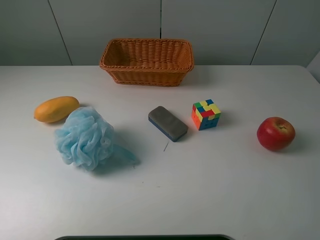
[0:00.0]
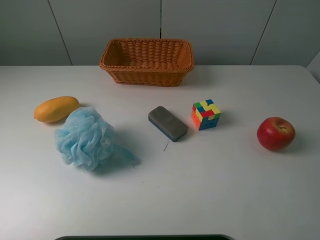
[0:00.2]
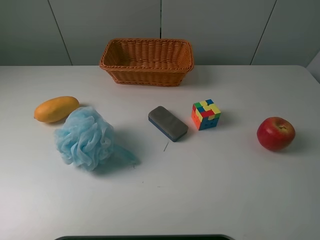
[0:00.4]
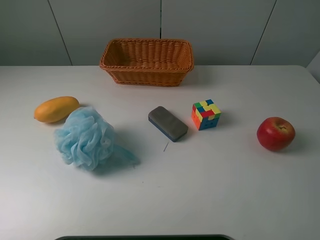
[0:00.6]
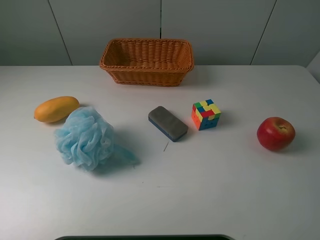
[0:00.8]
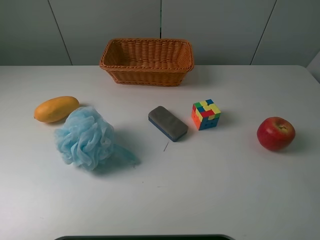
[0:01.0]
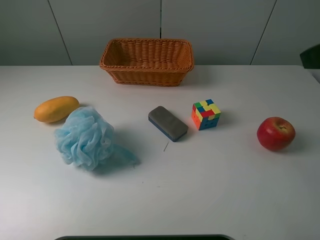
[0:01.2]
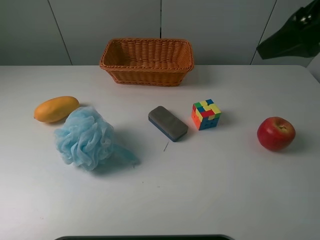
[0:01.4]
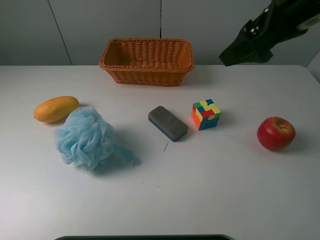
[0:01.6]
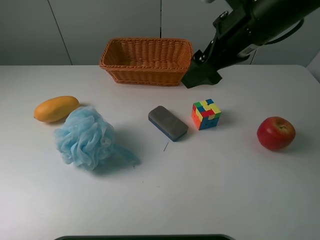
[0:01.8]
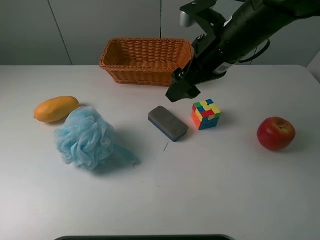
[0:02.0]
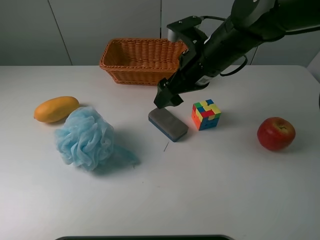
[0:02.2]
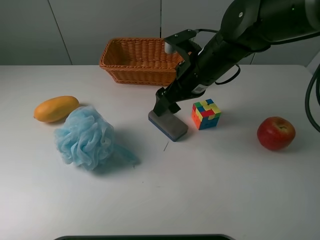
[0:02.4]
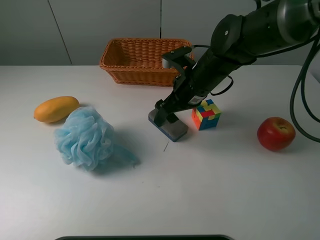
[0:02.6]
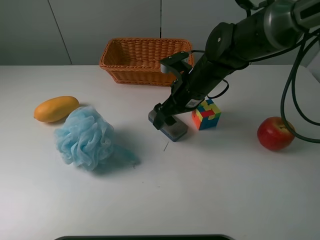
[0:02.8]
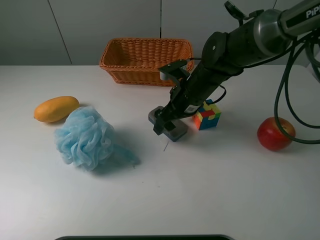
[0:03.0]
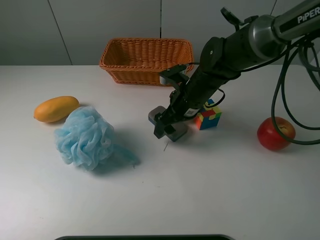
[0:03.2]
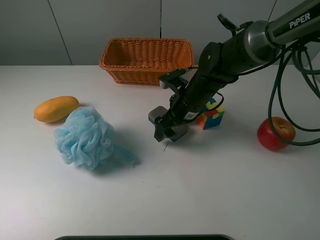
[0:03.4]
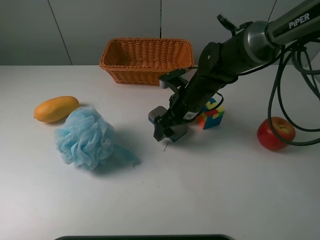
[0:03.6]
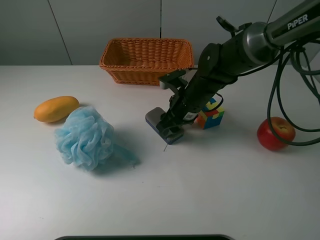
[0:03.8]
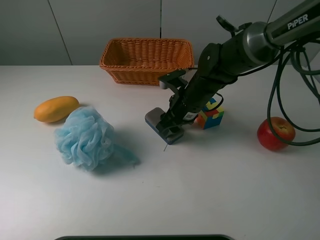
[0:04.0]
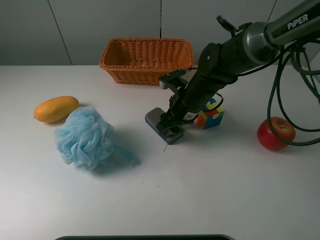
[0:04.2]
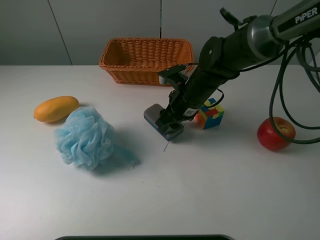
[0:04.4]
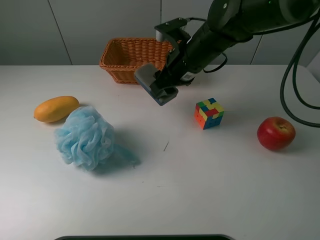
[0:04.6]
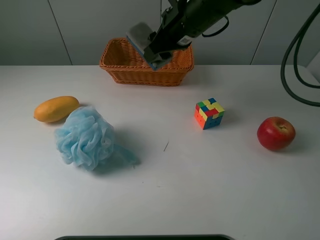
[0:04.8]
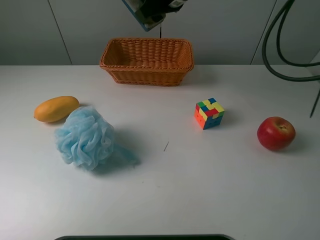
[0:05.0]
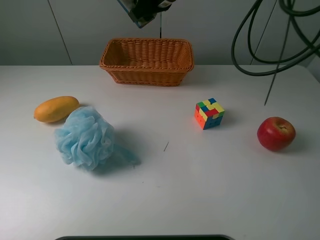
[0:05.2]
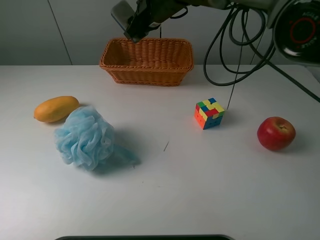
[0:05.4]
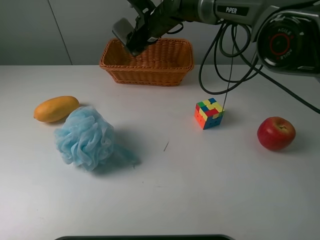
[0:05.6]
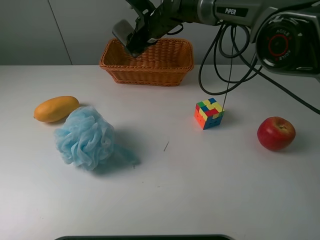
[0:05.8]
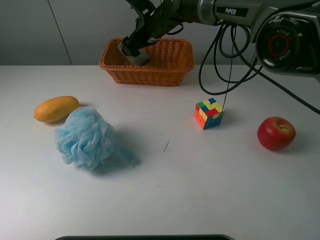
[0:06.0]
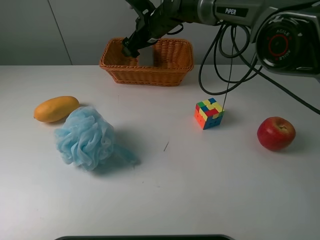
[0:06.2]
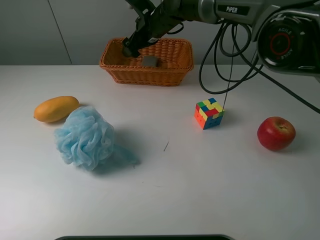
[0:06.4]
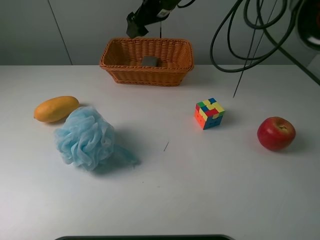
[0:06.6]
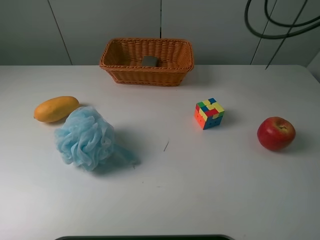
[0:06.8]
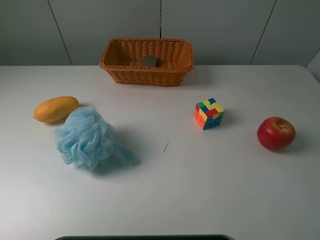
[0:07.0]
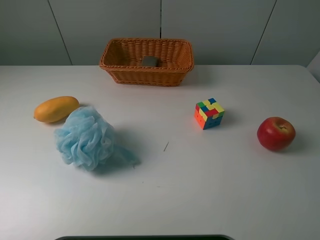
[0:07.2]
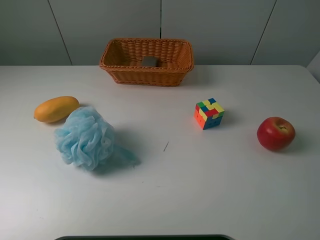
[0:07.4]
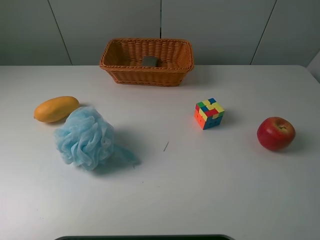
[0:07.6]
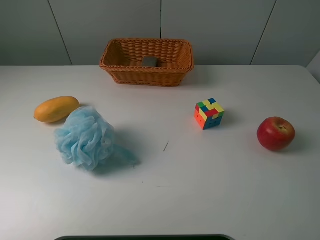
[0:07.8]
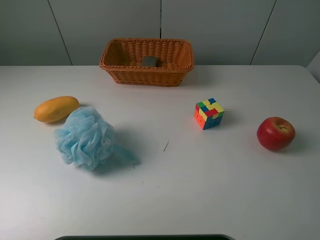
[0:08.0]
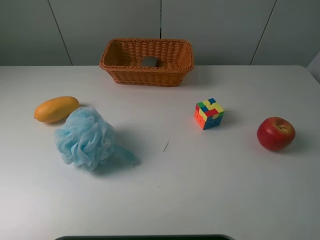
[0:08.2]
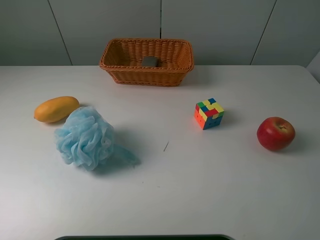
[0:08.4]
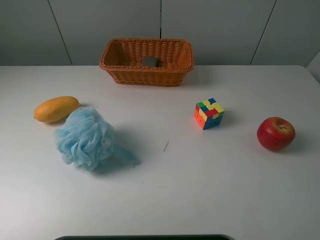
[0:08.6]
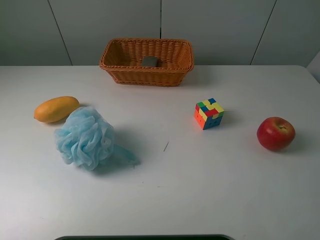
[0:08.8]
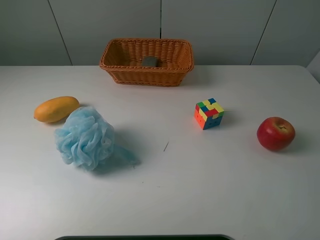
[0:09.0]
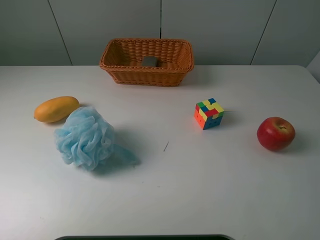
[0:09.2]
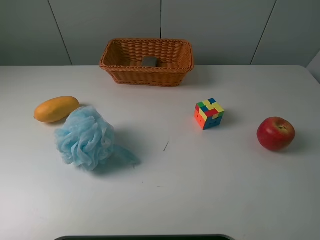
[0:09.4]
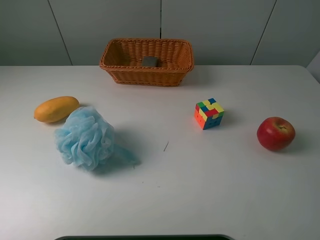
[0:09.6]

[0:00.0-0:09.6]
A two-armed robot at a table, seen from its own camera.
Task of the whole recording: use a picker to grab the item closest to the cube and place it in the basket.
Step, 0:00.0 to 0:03.8: Grasp the blackboard erasure with the right gripper.
Step, 0:04.0 to 0:06.4: Place the blackboard erasure into the basket with the right gripper.
0:00.0 to 0:01.6: The right gripper travels forward and to the left by approximately 25 cm.
0:01.6 to 0:03.2: The right gripper shifts some 25 cm downward and to the left.
0:03.2 to 0:04.8: The right gripper shifts roughly 15 cm upward, and closes up.
0:04.8 to 0:06.4: The right gripper goes about 15 cm forward, downward and to the left, and opens its fingers.
0:06.4 to 0:08.0: The right gripper travels backward, to the right and upward by approximately 60 cm.
